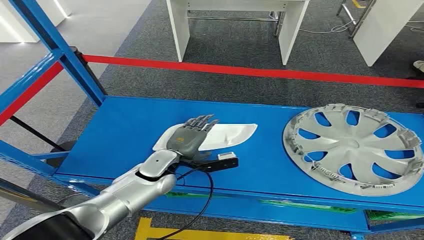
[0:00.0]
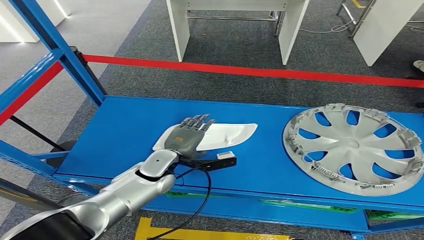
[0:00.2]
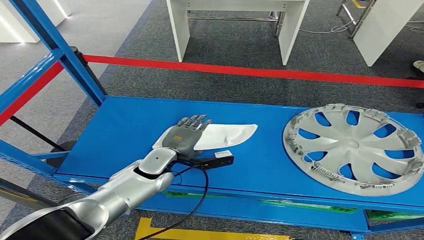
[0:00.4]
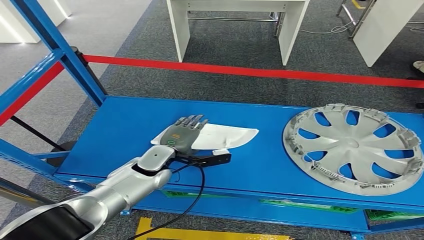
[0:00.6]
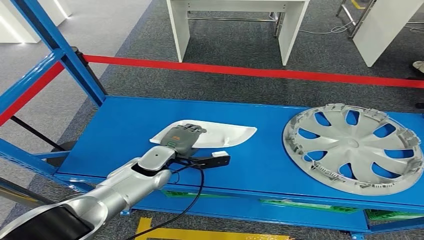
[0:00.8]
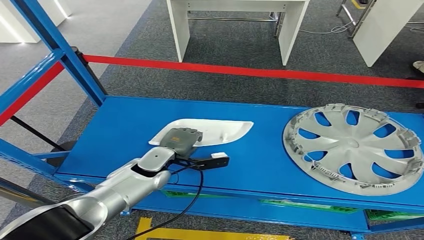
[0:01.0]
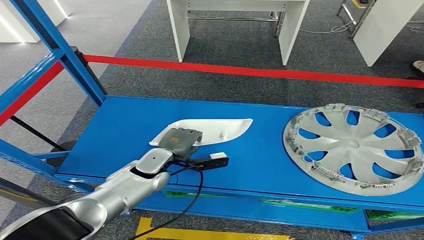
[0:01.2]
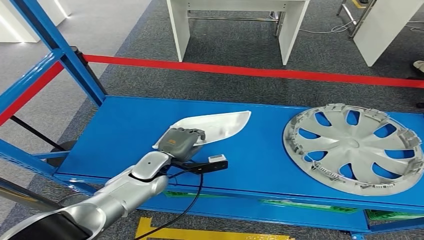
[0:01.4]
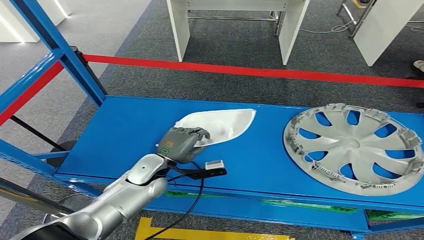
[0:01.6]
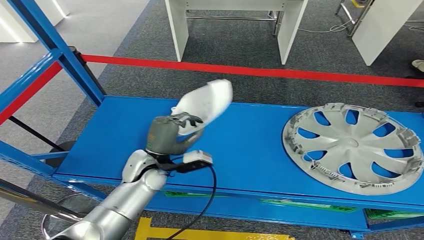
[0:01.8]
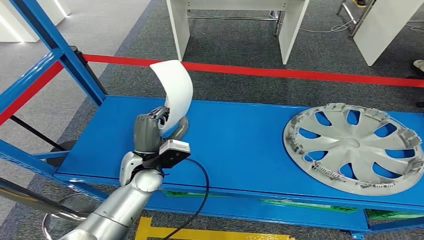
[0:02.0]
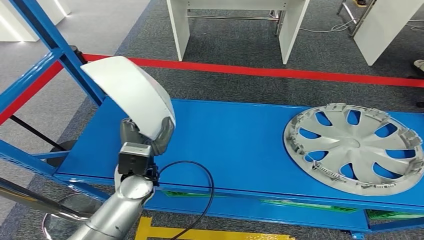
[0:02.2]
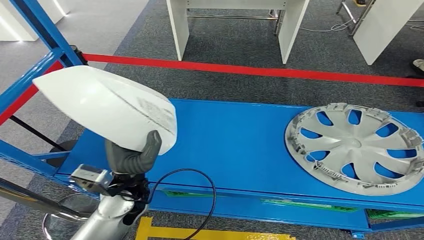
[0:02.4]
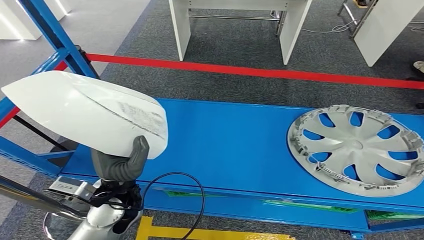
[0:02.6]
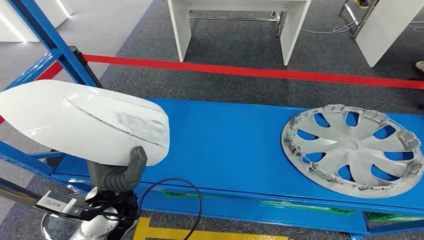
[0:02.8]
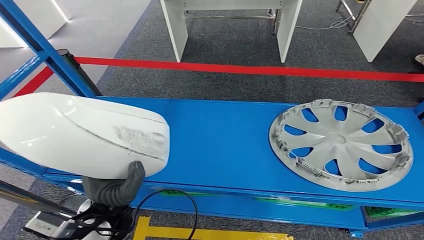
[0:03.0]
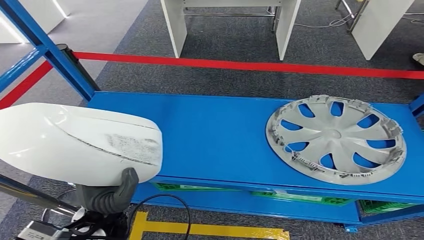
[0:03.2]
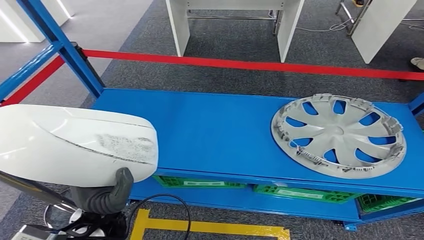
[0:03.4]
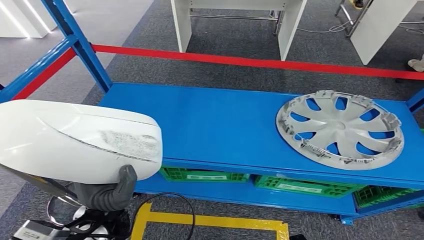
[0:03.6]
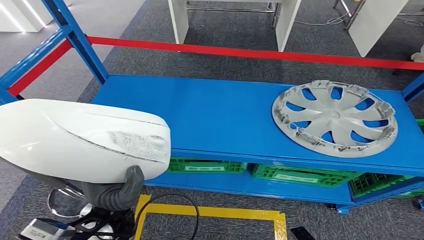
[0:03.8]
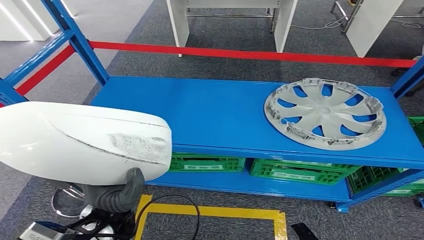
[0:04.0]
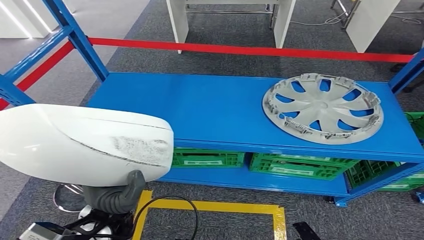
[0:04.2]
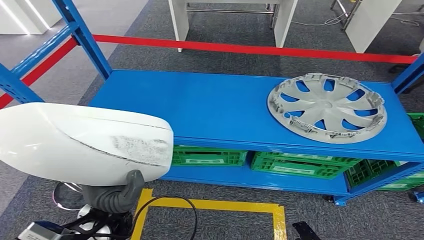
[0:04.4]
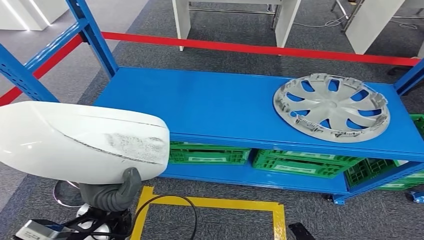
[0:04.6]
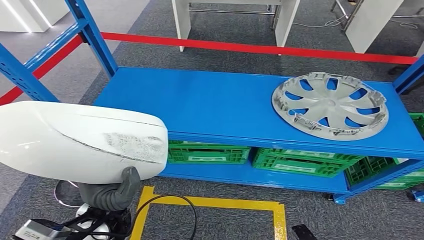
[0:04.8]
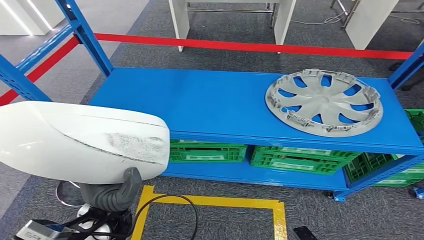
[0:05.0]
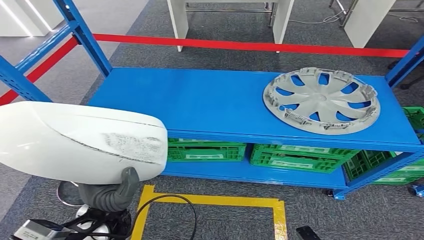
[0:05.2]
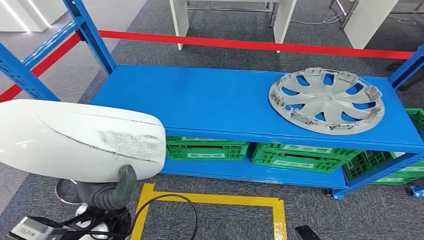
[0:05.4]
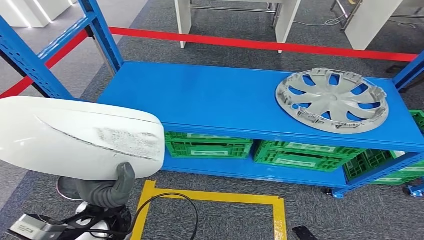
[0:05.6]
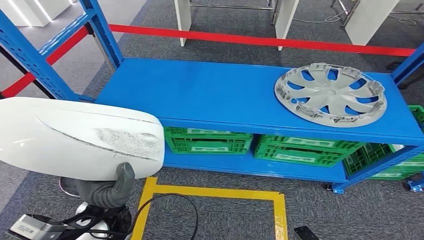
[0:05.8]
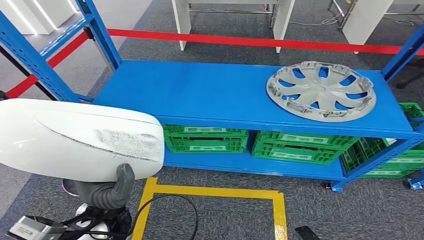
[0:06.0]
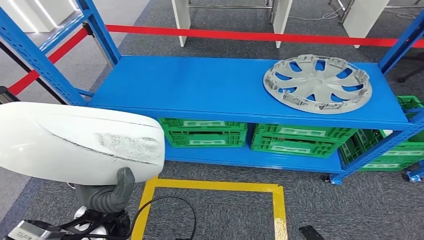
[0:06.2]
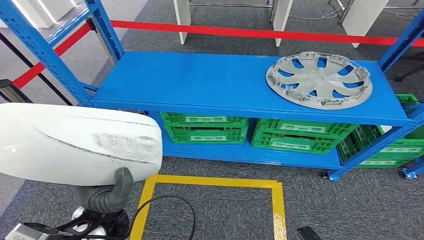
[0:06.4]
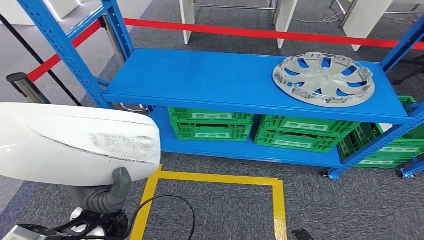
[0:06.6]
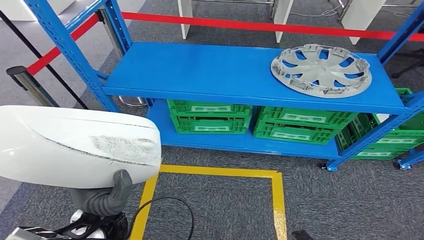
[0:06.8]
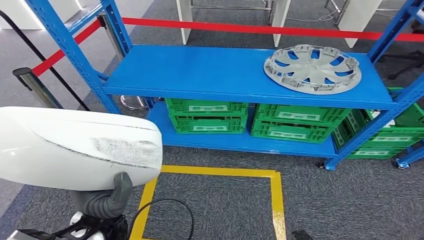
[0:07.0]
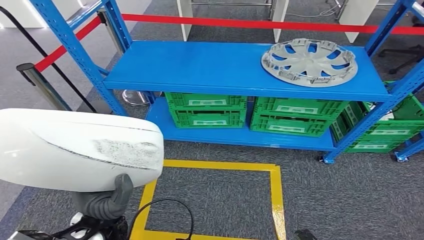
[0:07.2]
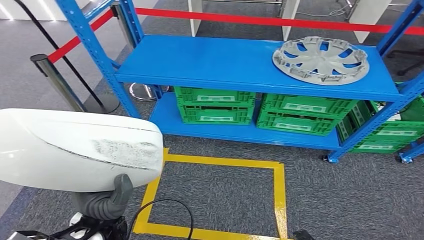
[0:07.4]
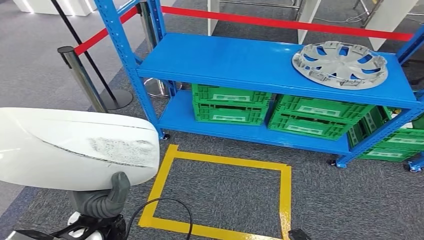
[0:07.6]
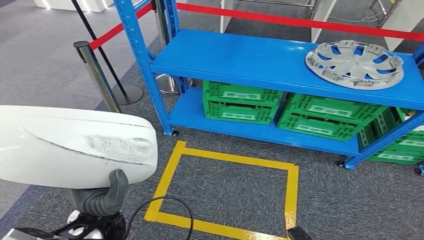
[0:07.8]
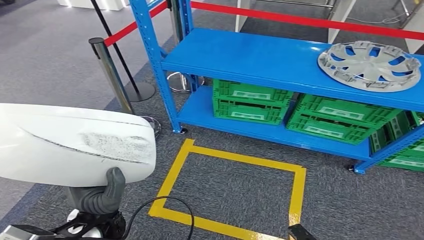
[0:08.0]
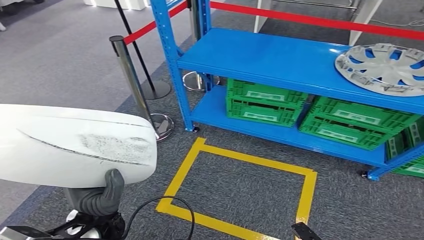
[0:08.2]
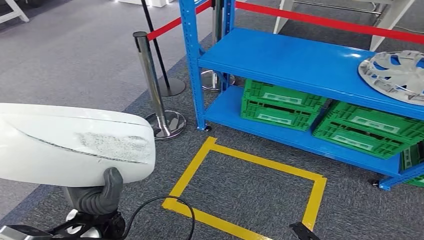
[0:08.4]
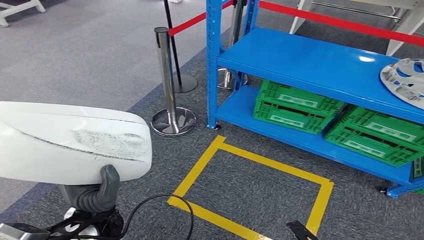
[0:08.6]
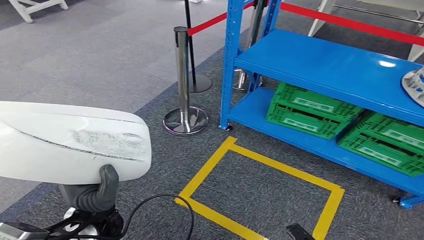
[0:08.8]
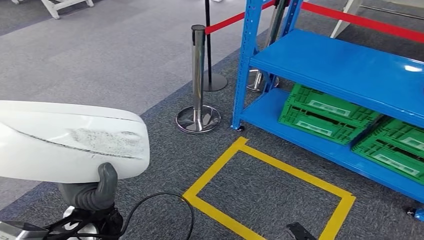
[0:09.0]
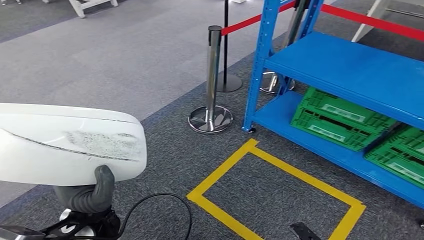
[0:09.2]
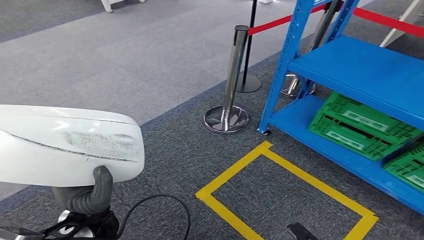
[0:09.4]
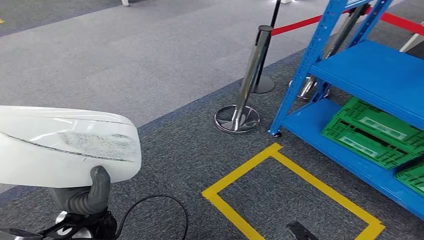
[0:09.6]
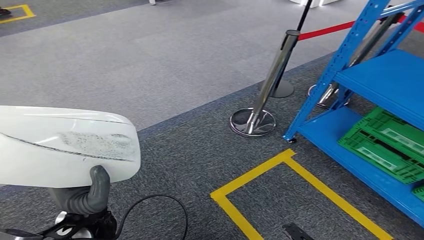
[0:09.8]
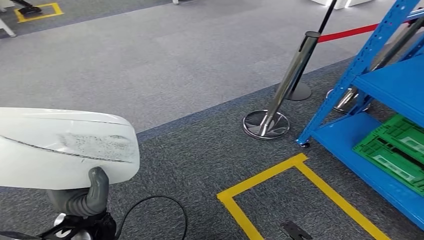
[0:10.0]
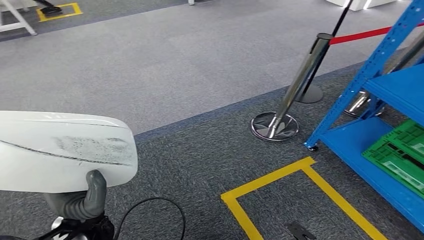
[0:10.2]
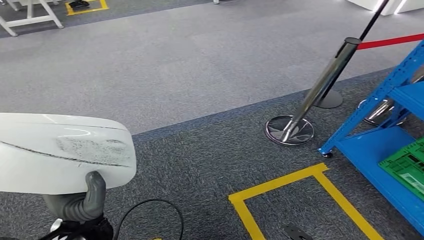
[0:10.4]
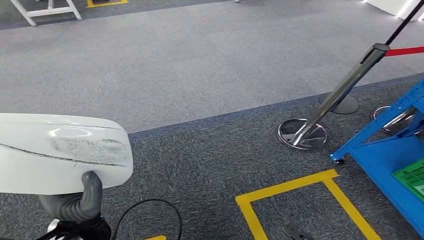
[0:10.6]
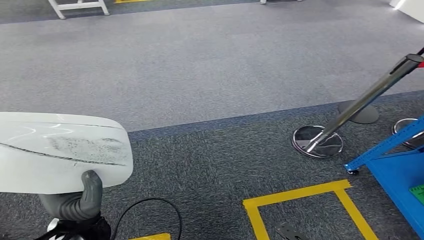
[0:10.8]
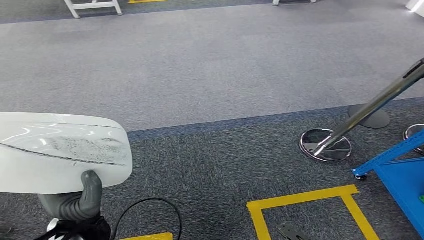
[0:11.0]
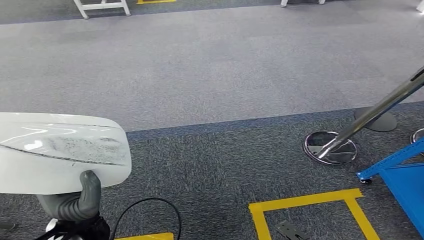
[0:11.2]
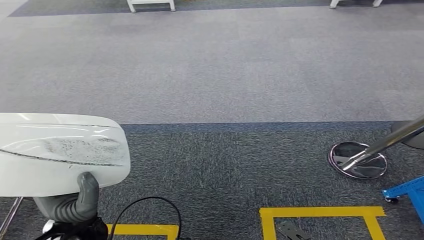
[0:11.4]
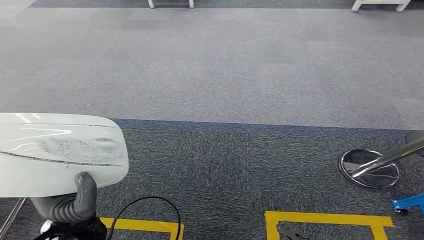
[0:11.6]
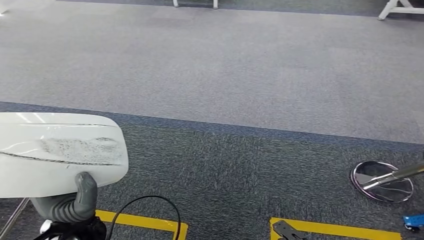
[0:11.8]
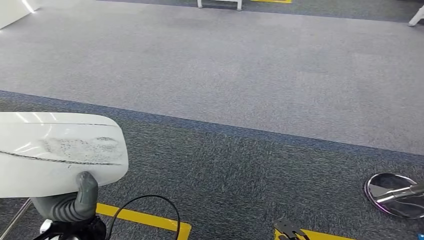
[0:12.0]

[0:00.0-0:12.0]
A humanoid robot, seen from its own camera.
Step, 0:00.0 to 0:02.8: Pick up the small parts from the shelf.

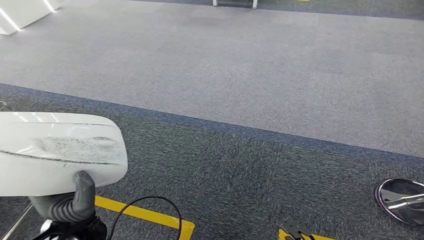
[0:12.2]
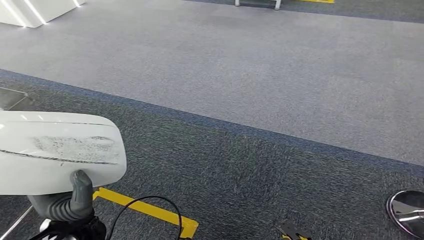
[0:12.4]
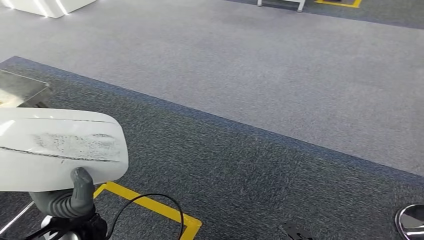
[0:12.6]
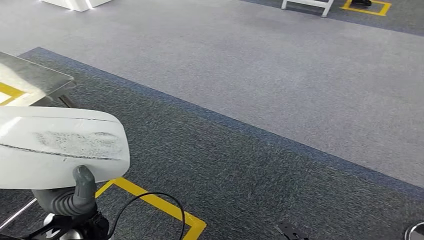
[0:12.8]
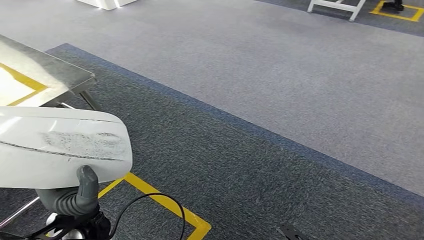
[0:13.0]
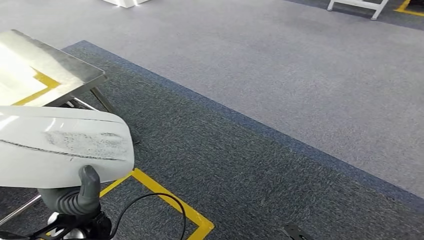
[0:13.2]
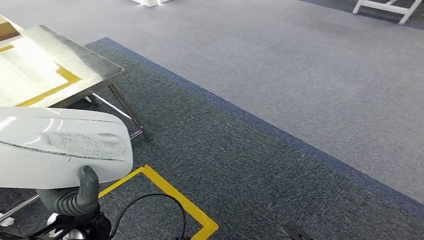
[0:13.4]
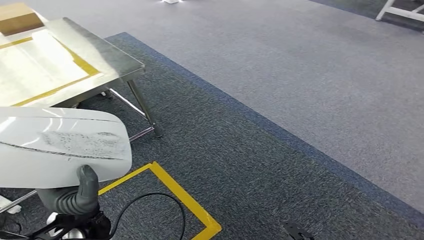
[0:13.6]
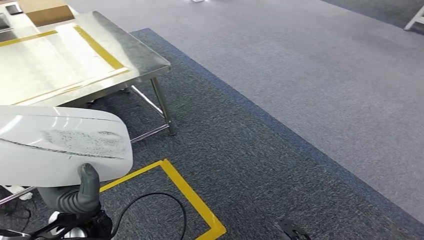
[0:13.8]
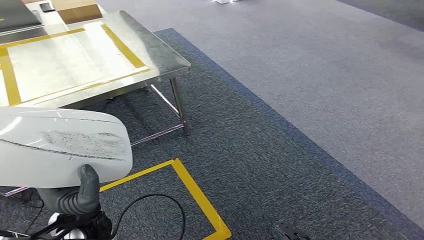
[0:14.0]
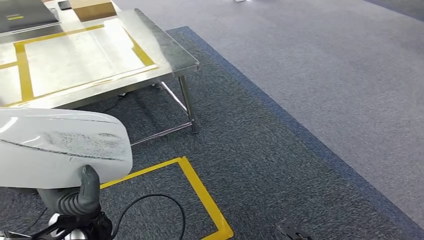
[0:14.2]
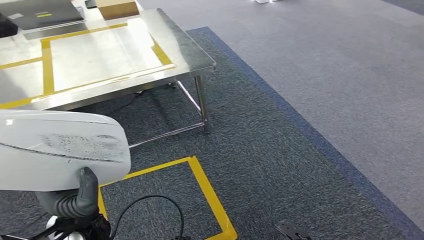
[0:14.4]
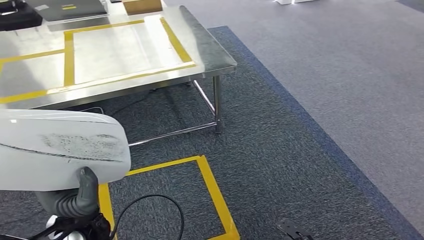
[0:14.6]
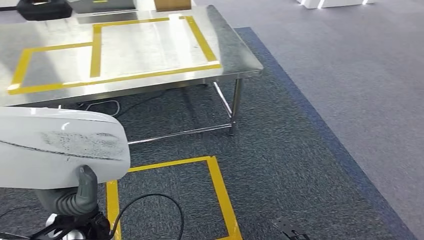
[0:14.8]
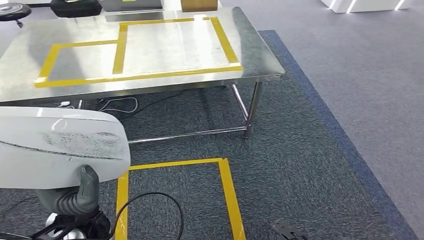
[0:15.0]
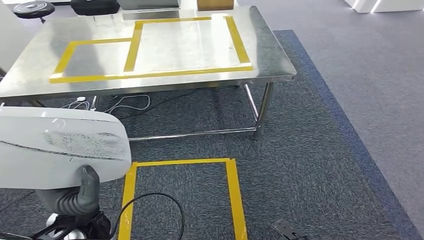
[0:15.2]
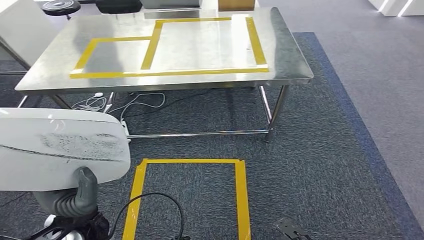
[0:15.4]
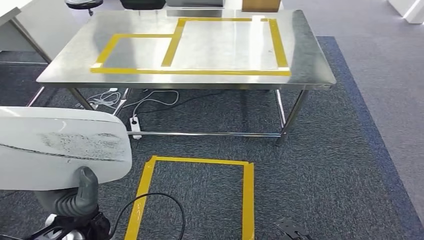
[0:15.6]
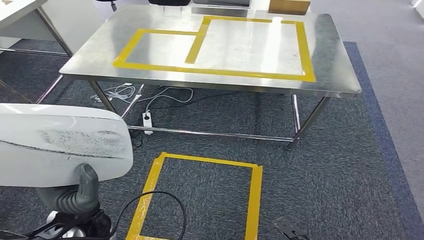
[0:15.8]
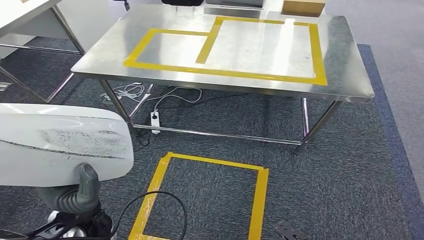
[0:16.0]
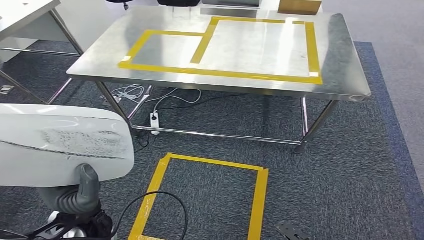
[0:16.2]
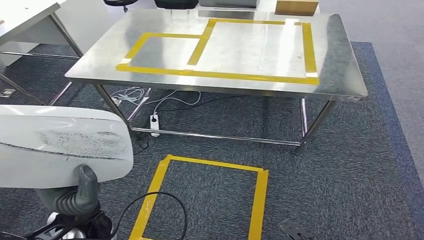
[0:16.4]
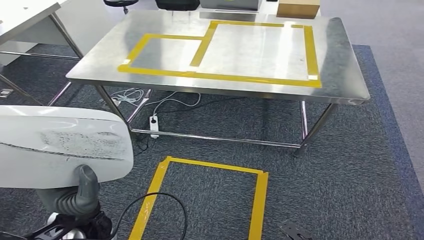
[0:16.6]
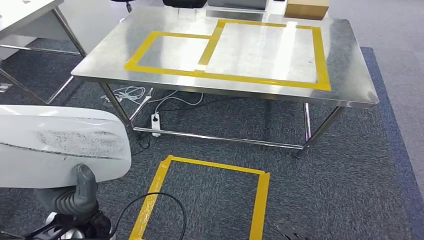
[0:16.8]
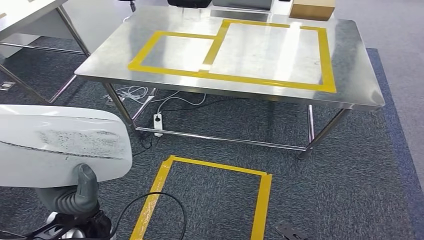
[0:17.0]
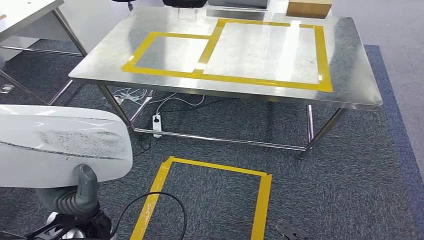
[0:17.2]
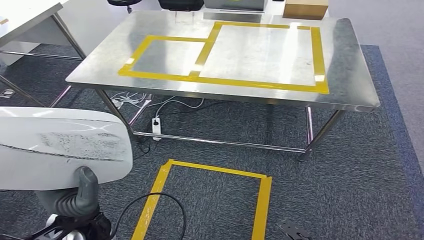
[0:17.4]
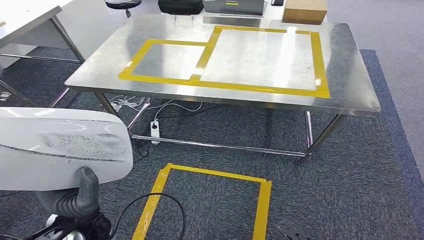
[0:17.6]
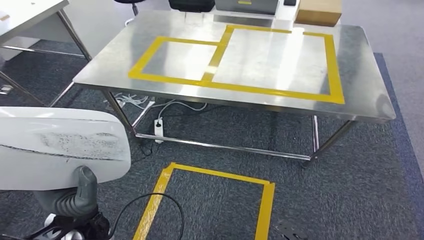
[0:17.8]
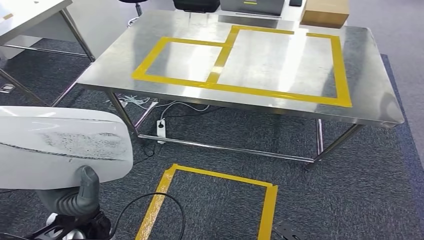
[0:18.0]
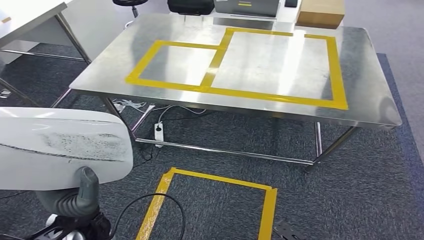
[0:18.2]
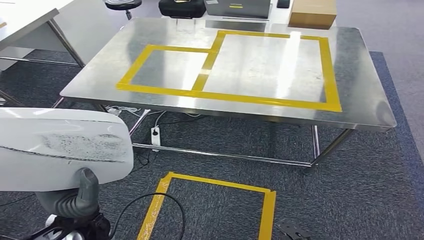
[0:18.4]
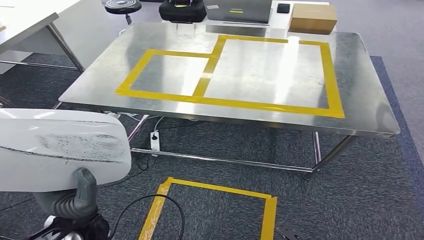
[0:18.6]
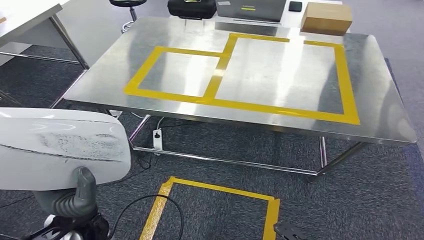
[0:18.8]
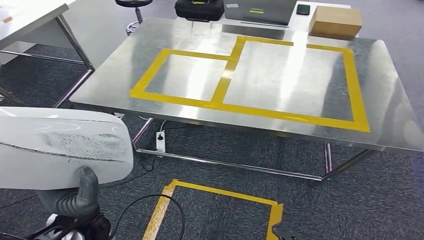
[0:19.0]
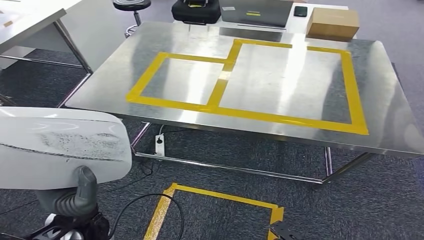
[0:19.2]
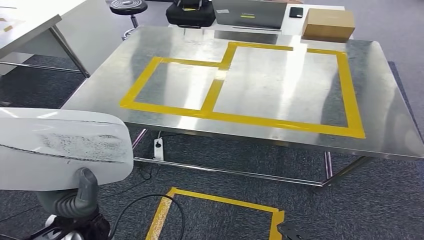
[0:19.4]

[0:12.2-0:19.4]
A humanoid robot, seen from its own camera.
Step, 0:12.2 to 0:17.8: Move the small parts to the workbench.
